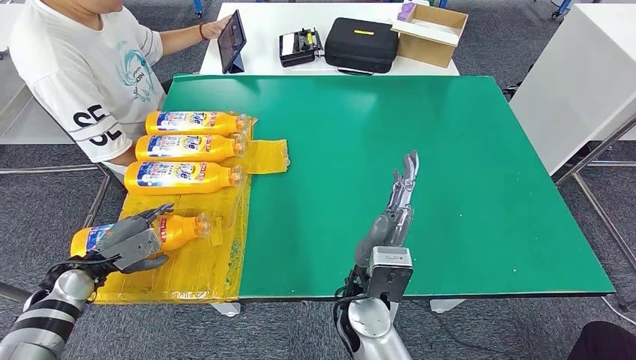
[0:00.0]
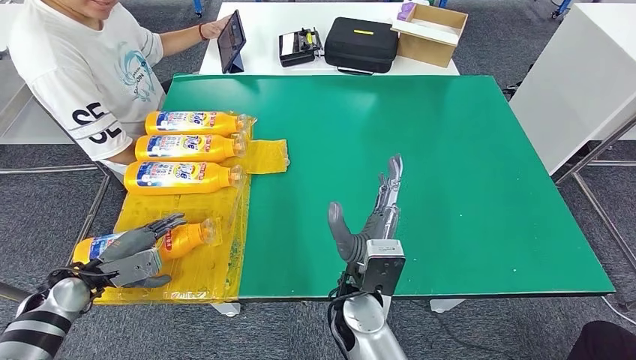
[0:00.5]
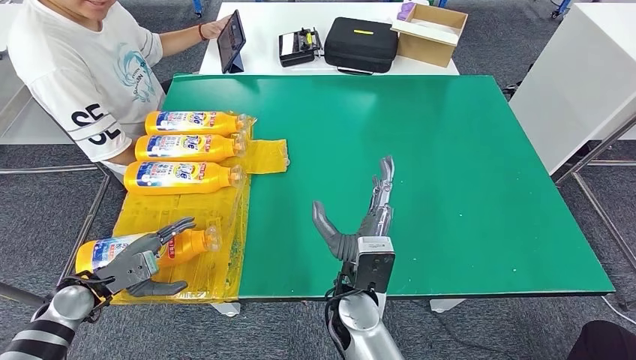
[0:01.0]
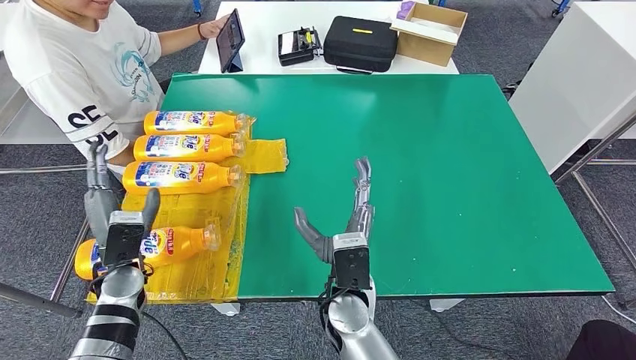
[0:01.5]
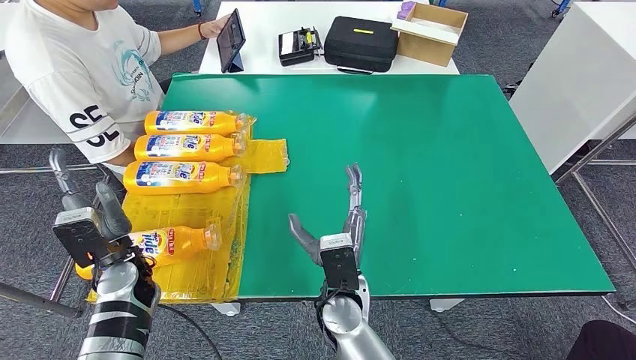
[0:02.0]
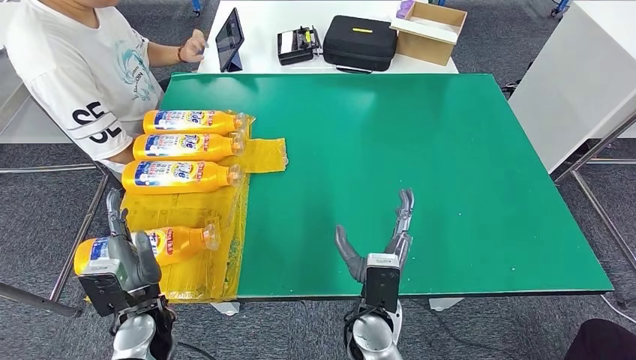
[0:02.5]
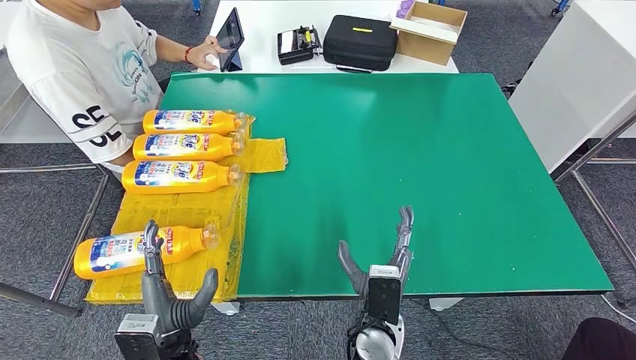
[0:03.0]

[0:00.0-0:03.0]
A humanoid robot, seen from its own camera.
Step, 0:00.0 to 0:03.0: Flip the fast-moving consumer goods bottle to the front side.
0:00.0 to 0:01.5: The left hand shifts approximately 10 cm to the right.
0:01.5 to 0:03.0: The left hand moves backward and to the right, approximately 20 cm; the right hand heads downward, covering about 5 cm.

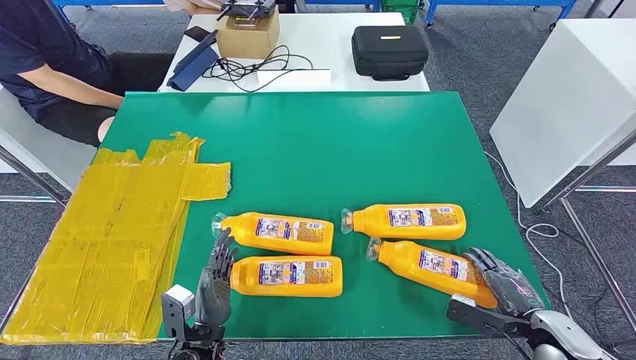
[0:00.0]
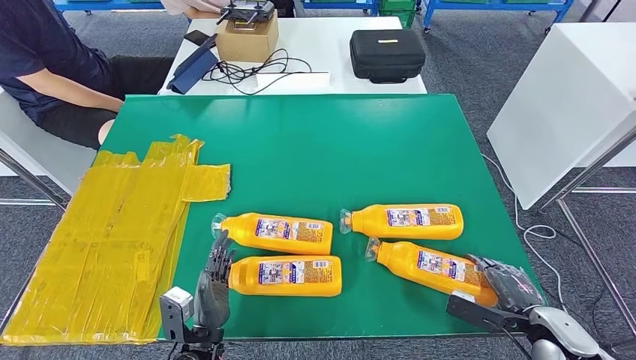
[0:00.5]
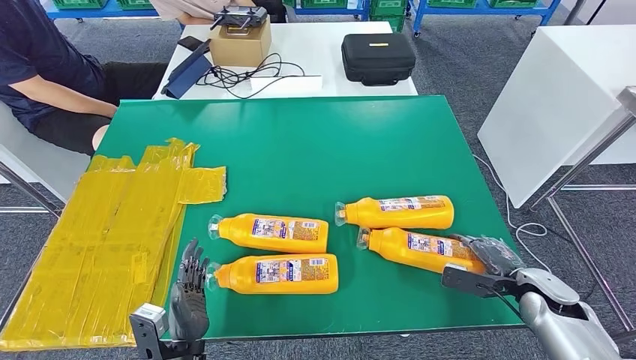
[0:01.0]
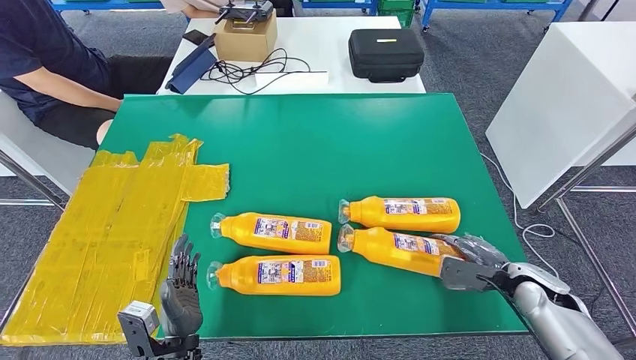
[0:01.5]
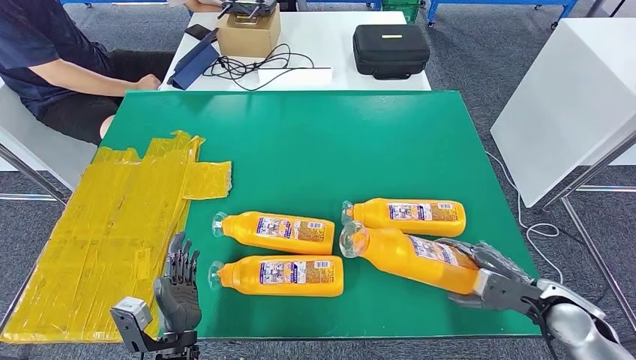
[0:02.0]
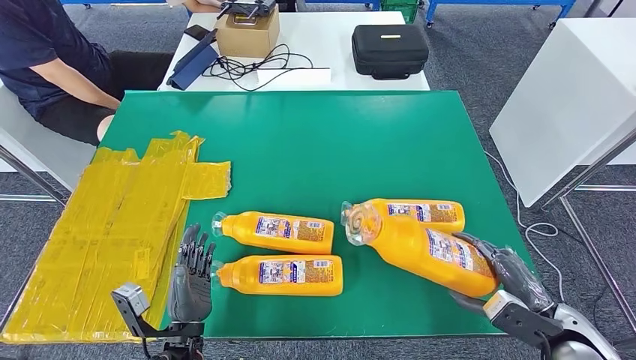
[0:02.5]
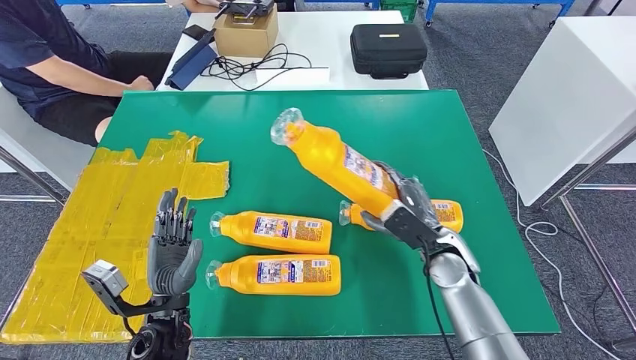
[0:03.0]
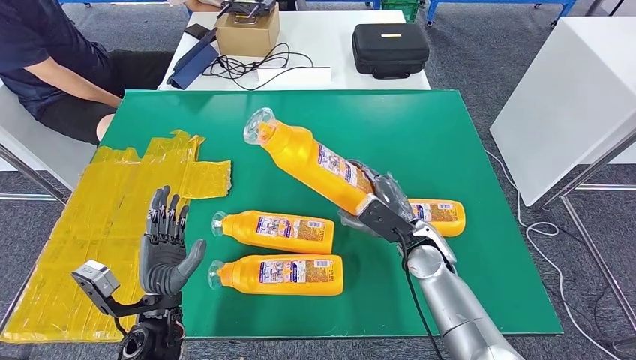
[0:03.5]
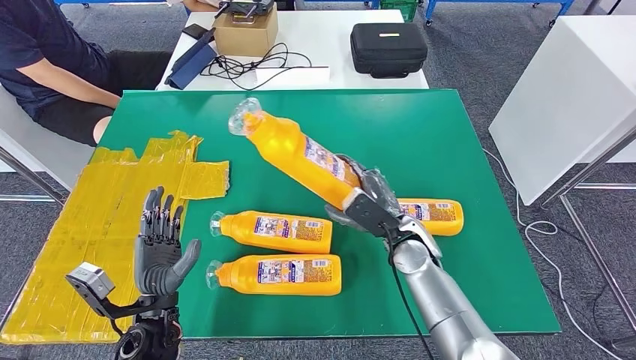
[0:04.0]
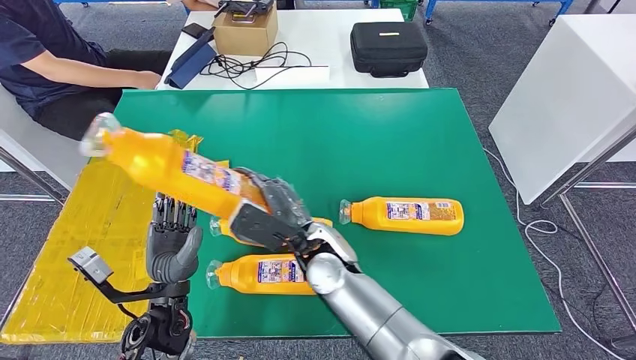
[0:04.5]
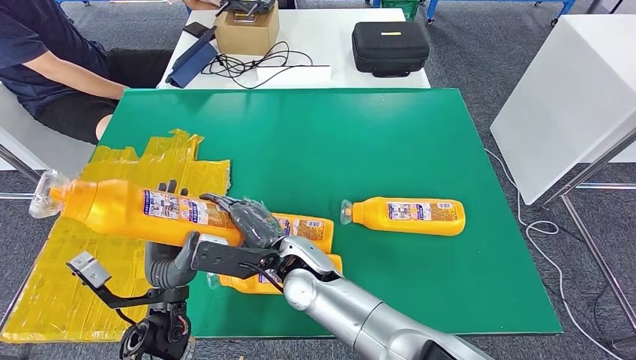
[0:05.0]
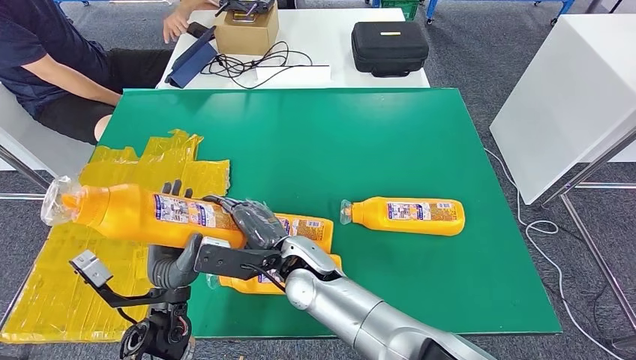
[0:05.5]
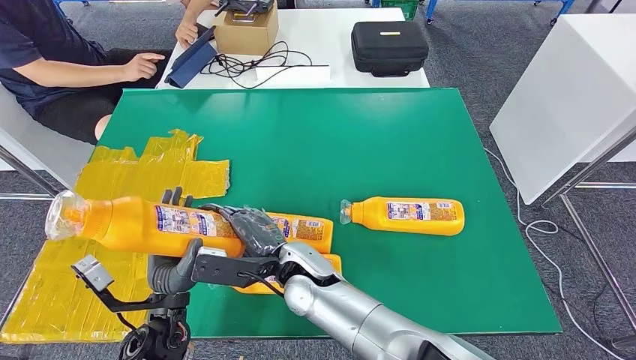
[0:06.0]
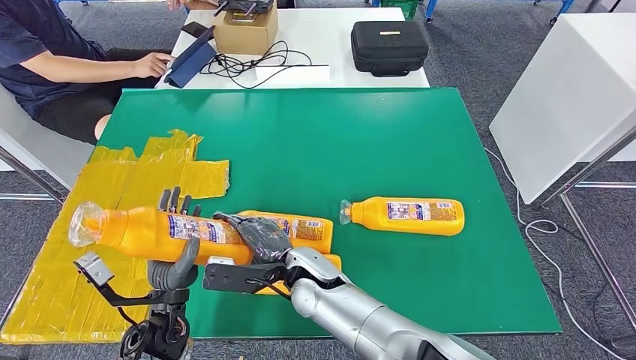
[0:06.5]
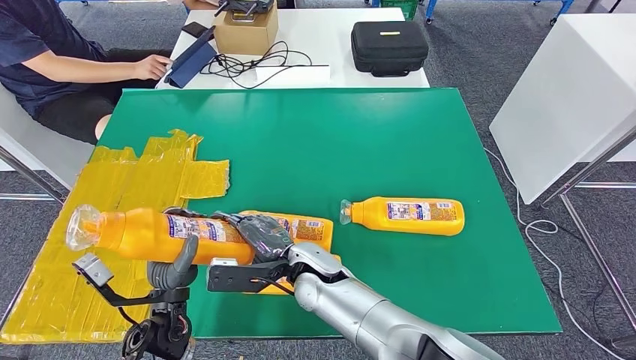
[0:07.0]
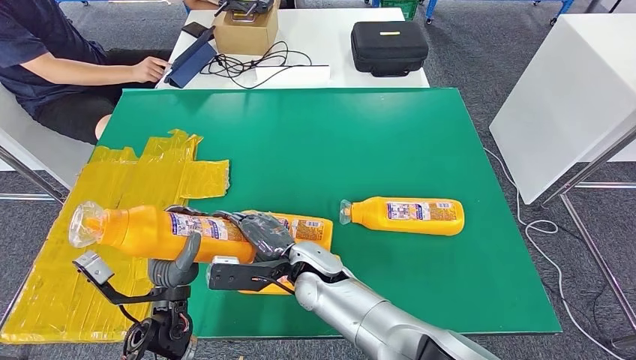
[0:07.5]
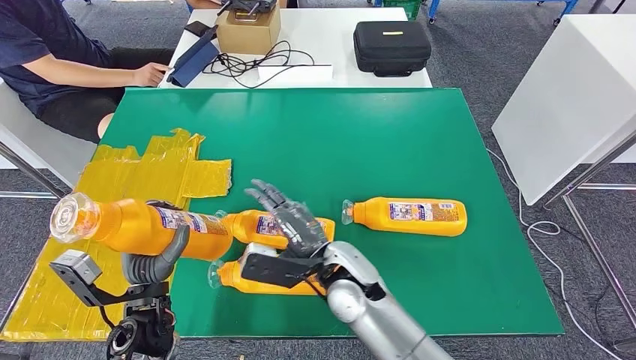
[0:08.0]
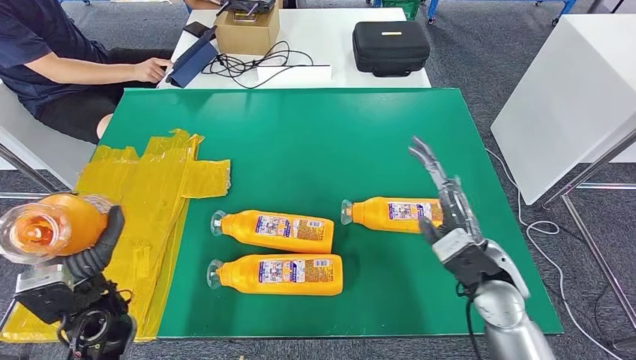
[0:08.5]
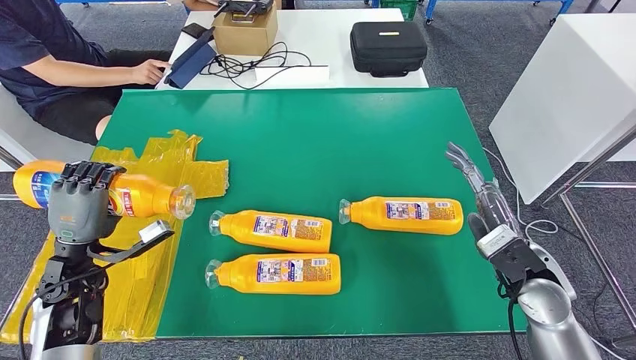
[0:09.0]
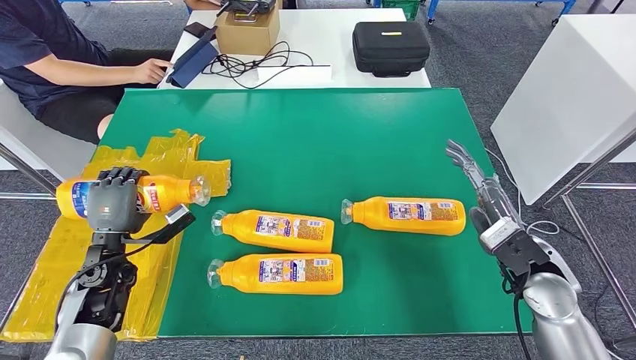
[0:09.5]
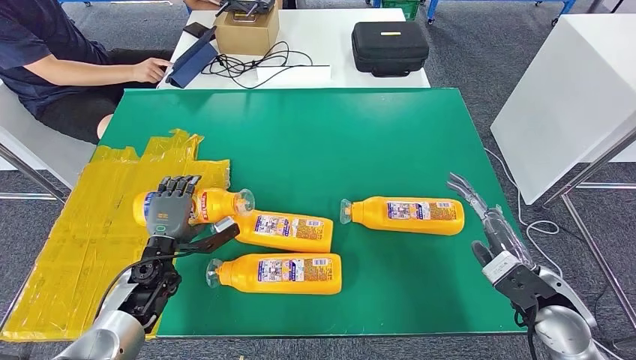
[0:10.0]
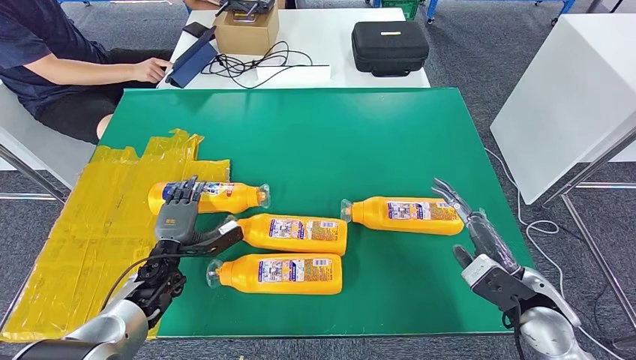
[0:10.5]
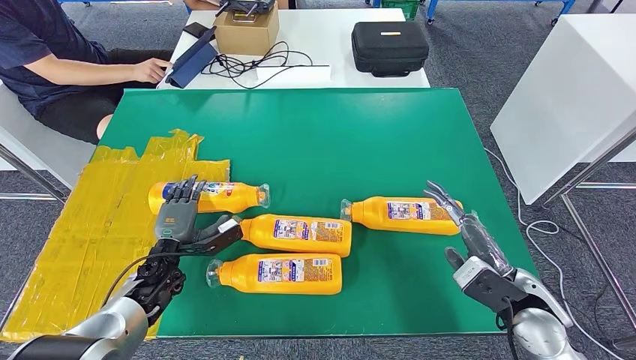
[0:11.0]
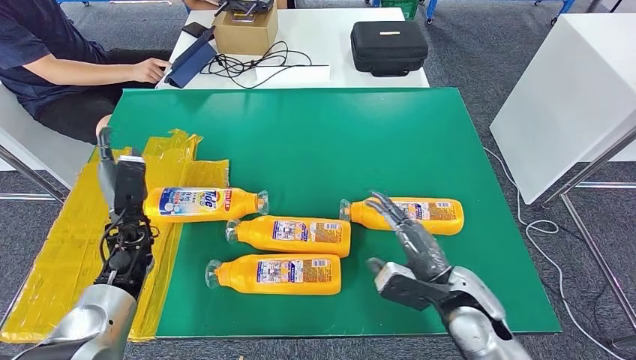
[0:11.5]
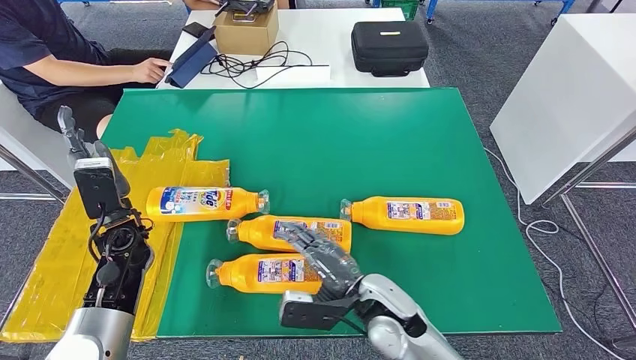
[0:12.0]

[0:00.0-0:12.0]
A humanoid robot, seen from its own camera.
Step, 0:00.0 to 0:03.5: Take the fast-moving consumer goods bottle from the table.
Step, 0:05.5 to 0:10.0: Flip the fast-moving consumer goods bottle to the front side.
0:06.0 to 0:08.0: The right hand goes about 5 cm to the right.
0:10.0 to 0:12.0: The right hand travels to the left by about 25 cm, while the left hand travels upward by approximately 10 cm.

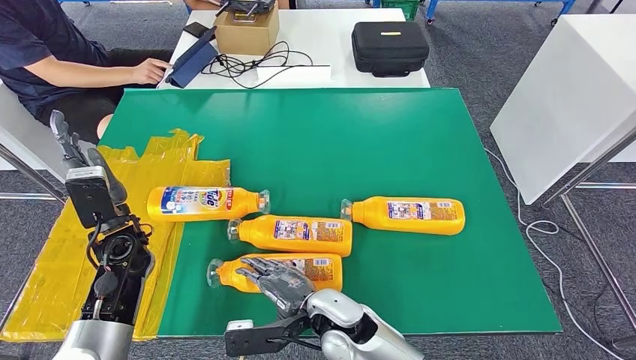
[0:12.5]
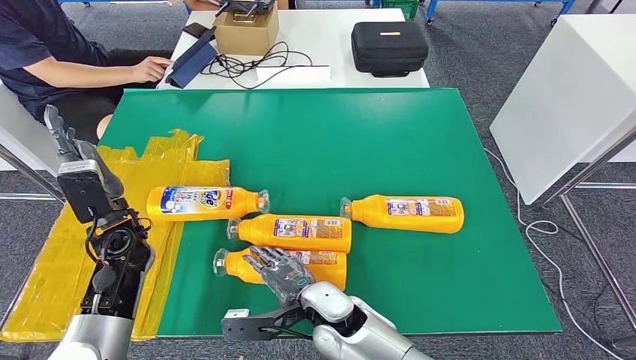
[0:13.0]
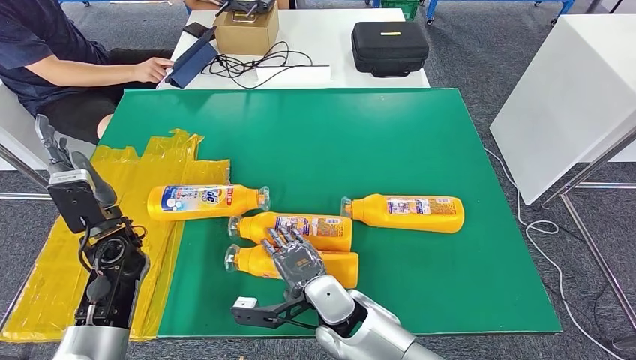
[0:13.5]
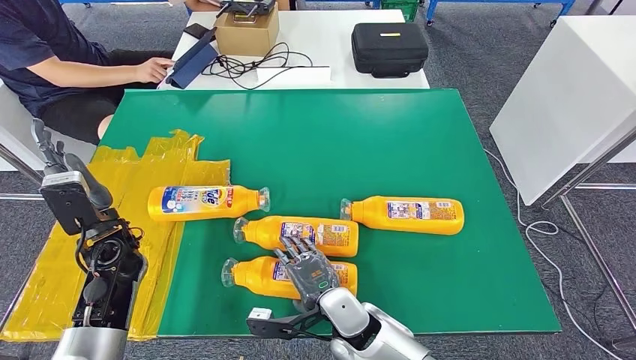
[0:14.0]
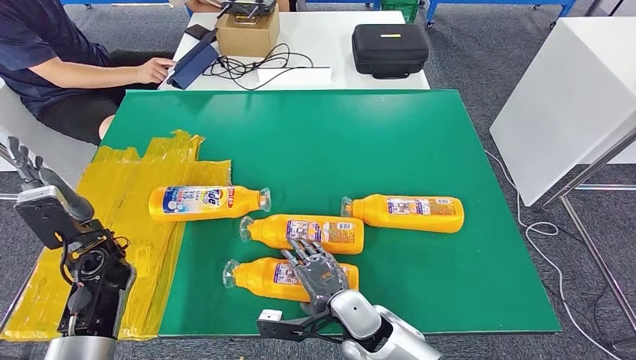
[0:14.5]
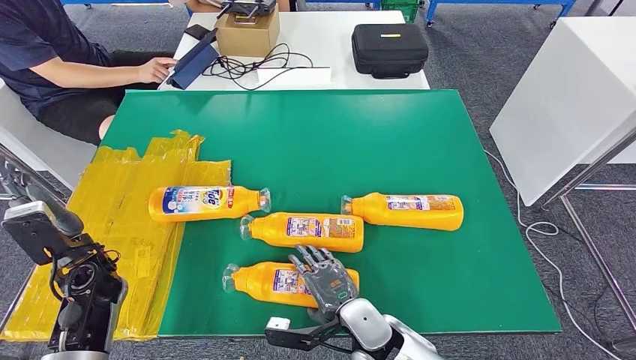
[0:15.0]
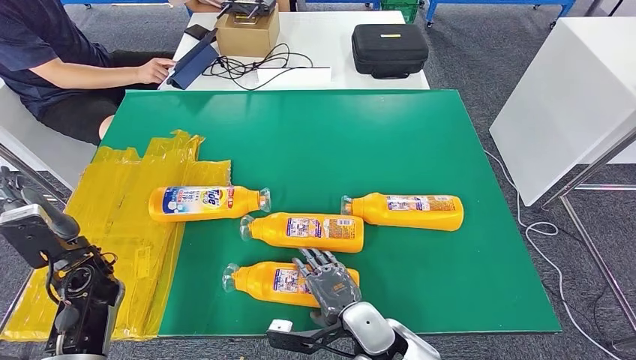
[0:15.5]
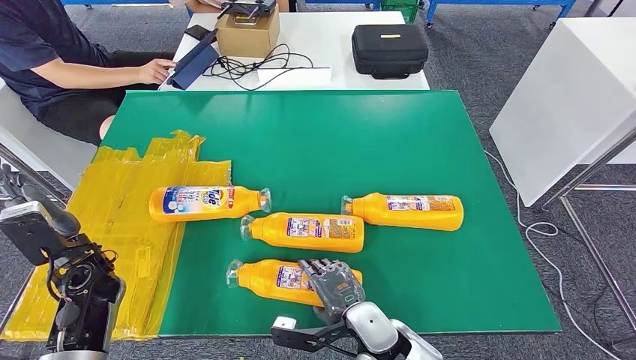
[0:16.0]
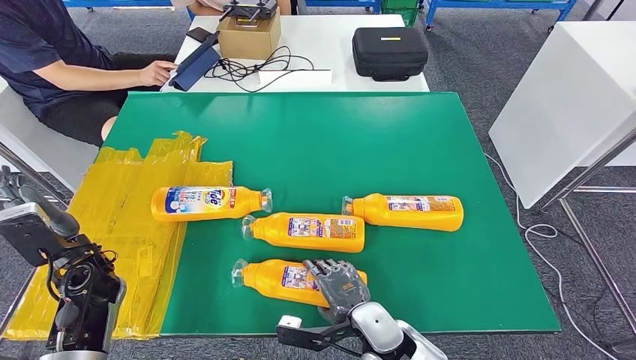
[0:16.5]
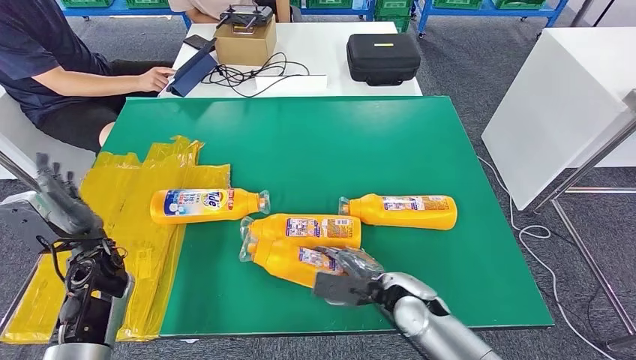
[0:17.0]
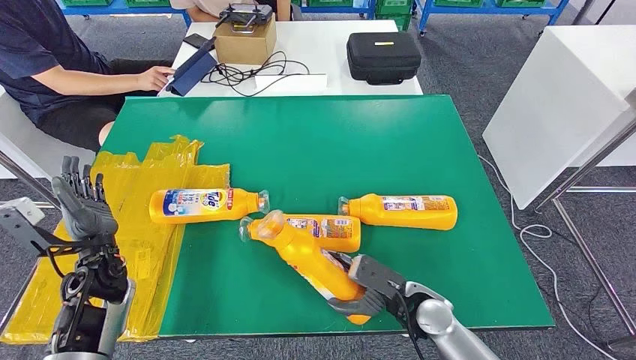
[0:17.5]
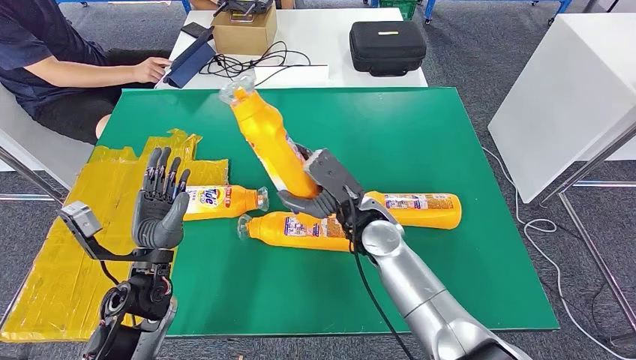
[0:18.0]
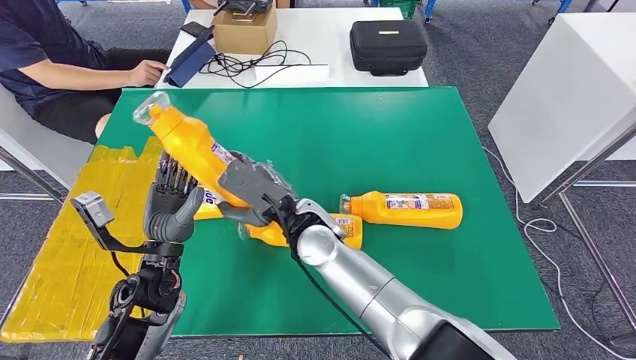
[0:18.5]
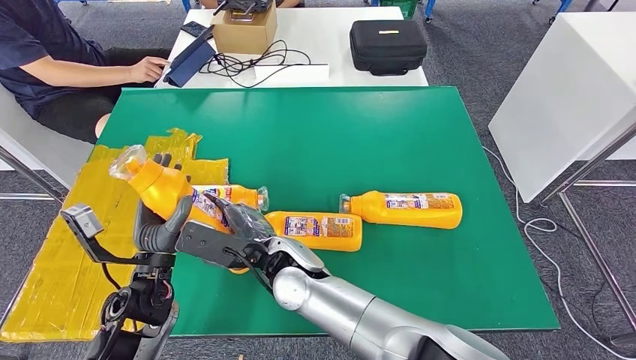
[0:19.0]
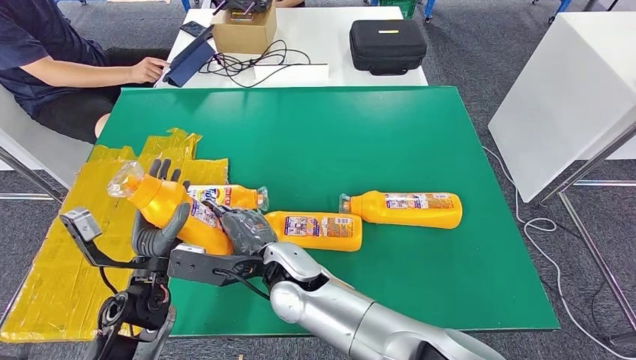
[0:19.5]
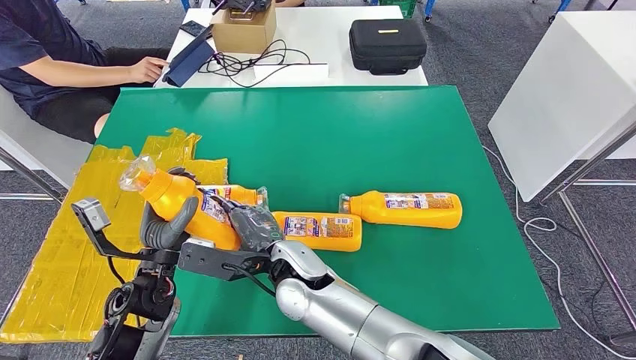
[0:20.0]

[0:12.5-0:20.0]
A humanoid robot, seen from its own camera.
Step, 0:15.5 to 0:18.0: Pick up the fast-moving consumer goods bottle from the table.
0:14.5 to 0:16.5: There are only small adjustments of the hands.
